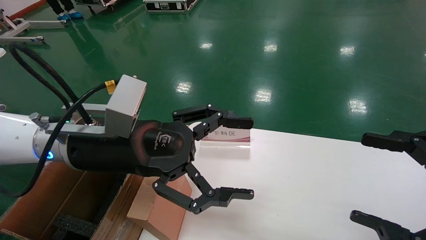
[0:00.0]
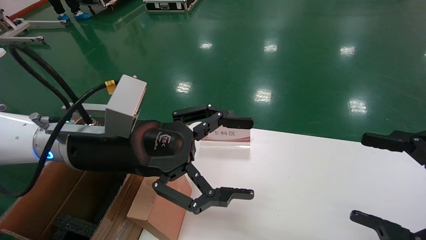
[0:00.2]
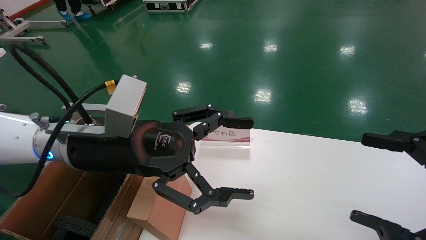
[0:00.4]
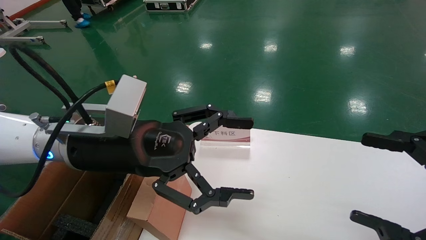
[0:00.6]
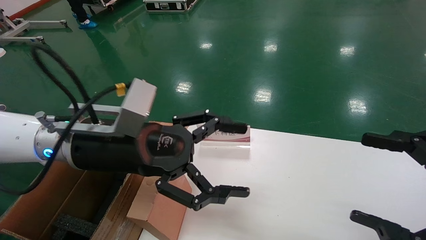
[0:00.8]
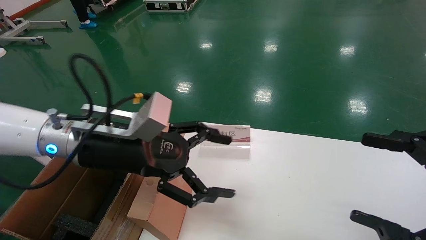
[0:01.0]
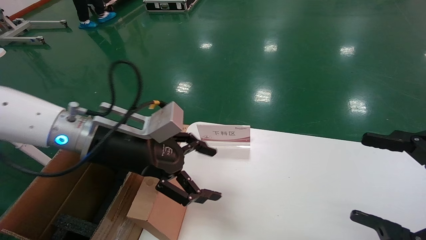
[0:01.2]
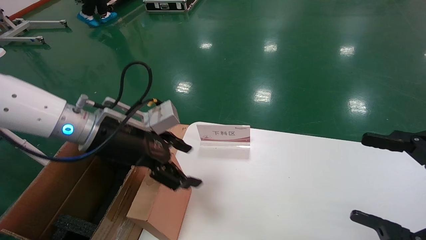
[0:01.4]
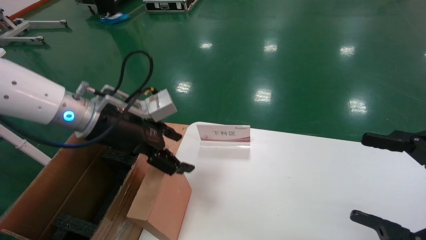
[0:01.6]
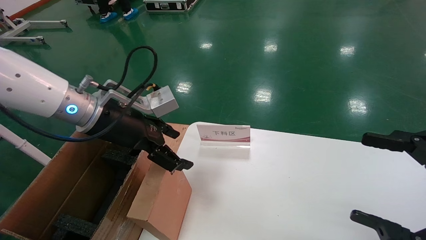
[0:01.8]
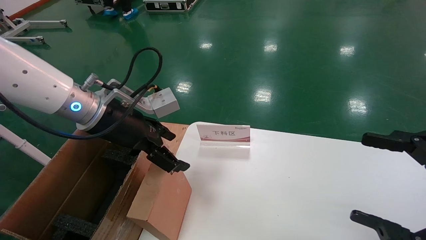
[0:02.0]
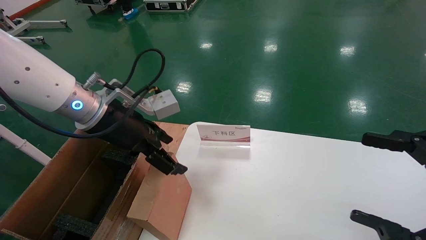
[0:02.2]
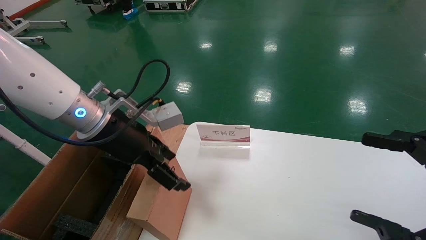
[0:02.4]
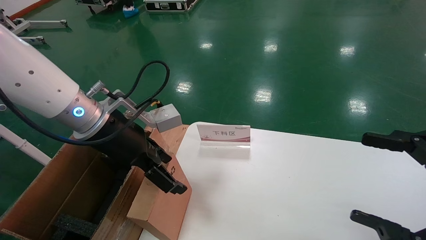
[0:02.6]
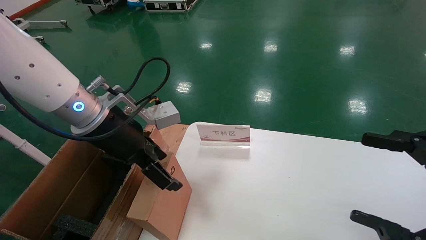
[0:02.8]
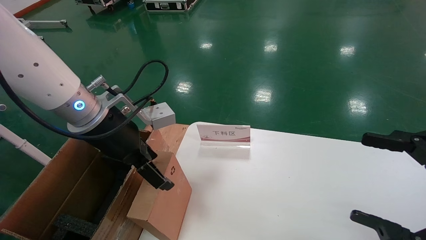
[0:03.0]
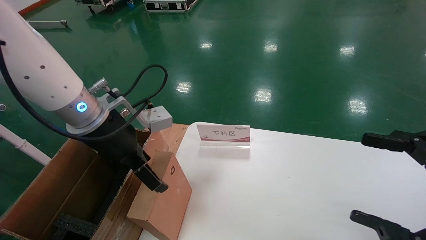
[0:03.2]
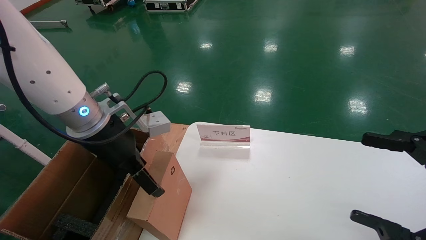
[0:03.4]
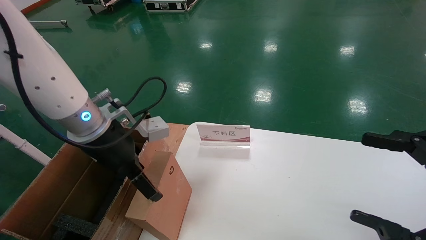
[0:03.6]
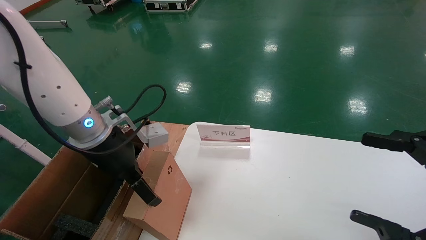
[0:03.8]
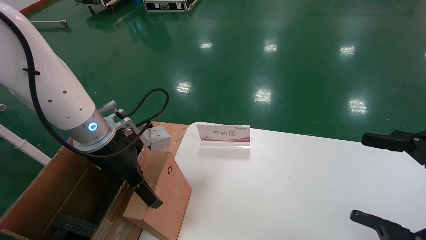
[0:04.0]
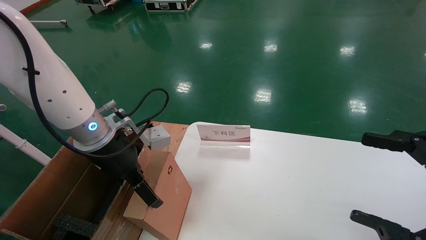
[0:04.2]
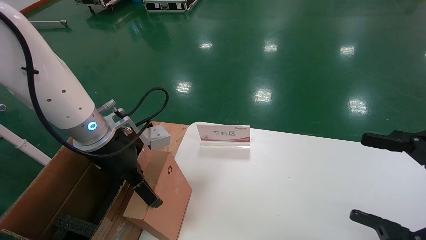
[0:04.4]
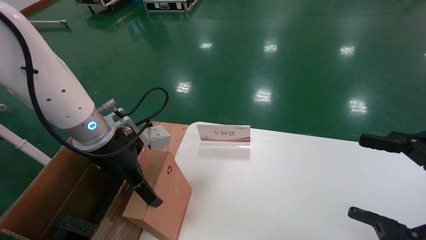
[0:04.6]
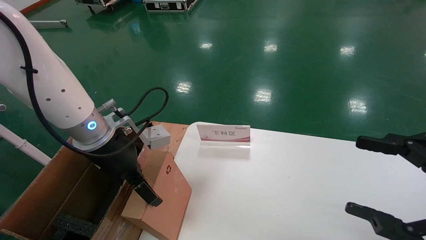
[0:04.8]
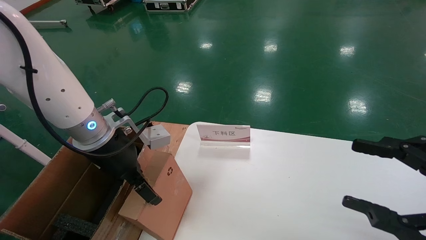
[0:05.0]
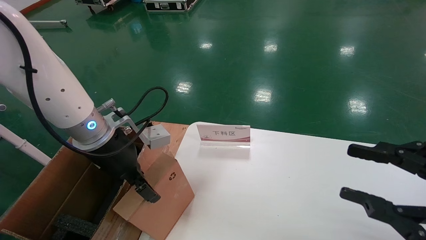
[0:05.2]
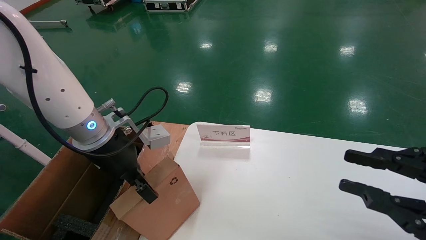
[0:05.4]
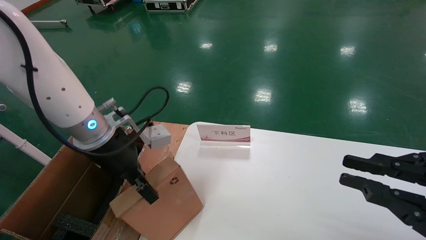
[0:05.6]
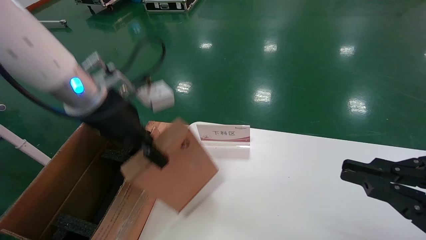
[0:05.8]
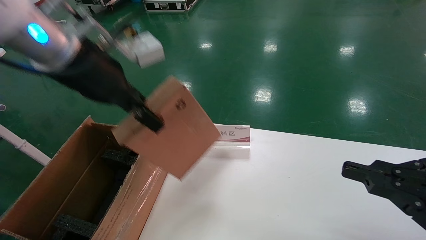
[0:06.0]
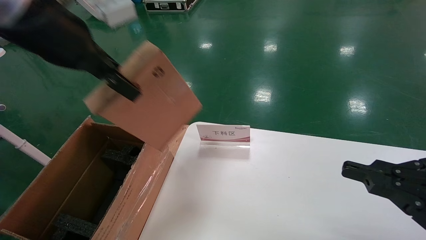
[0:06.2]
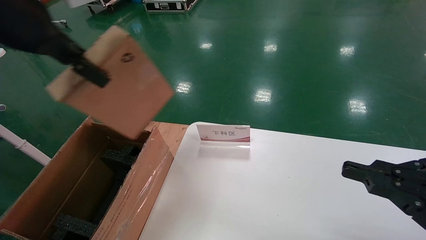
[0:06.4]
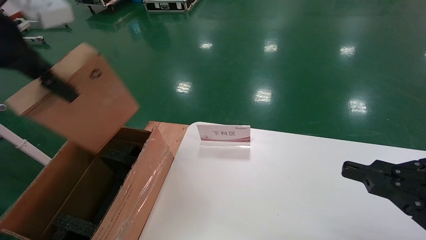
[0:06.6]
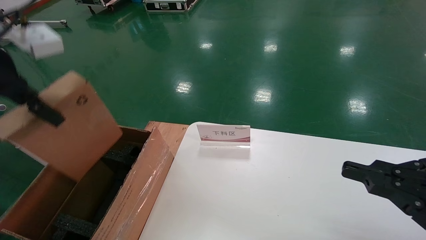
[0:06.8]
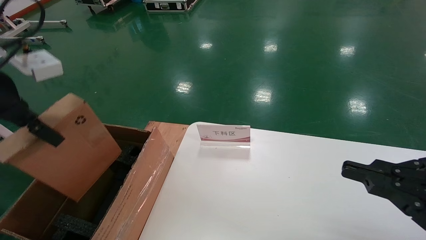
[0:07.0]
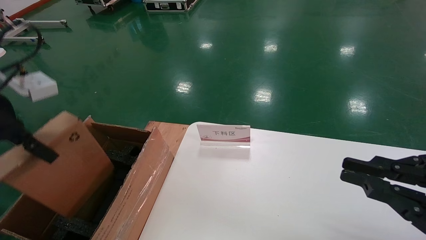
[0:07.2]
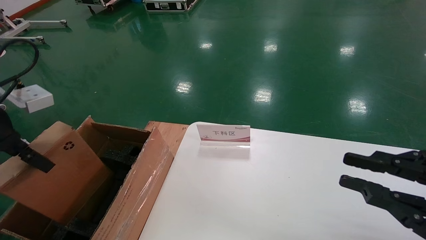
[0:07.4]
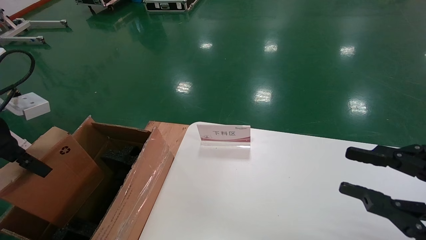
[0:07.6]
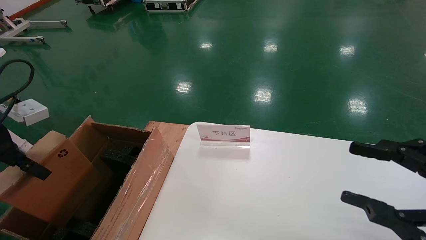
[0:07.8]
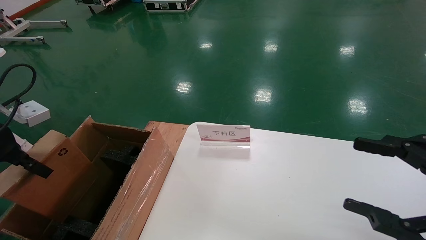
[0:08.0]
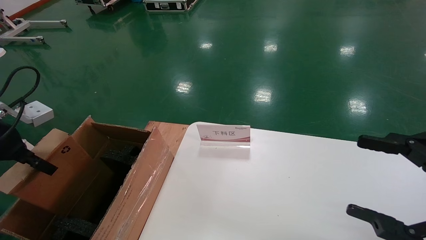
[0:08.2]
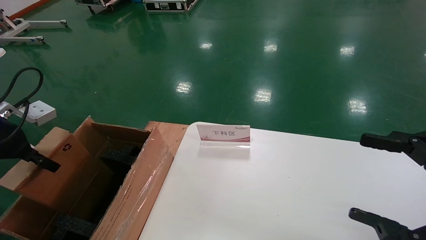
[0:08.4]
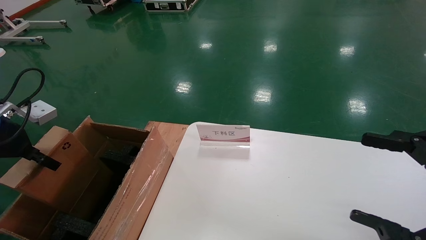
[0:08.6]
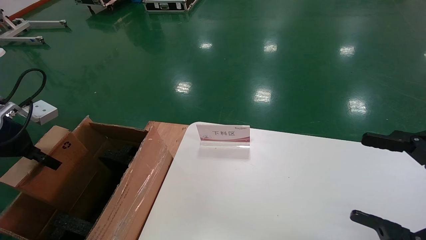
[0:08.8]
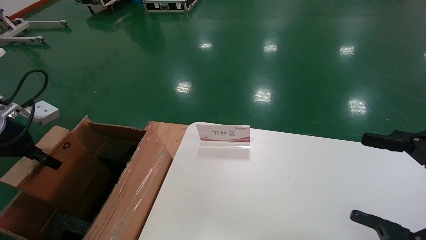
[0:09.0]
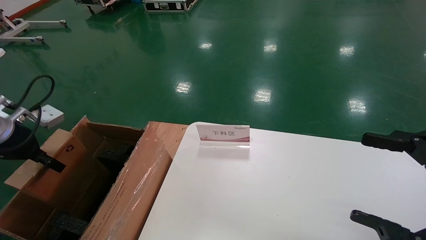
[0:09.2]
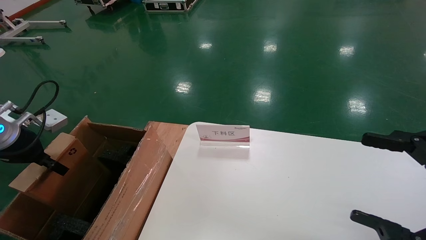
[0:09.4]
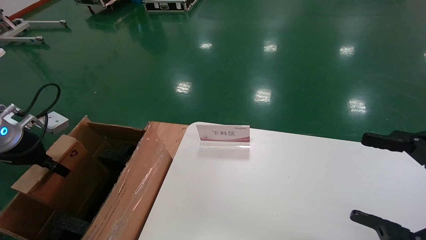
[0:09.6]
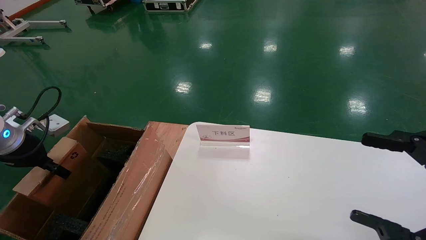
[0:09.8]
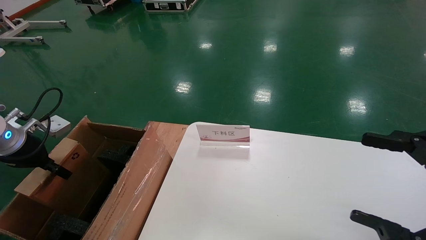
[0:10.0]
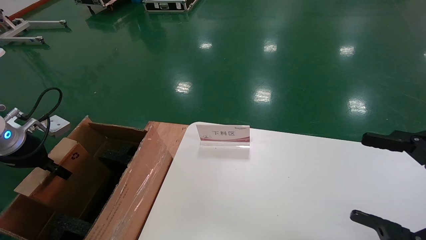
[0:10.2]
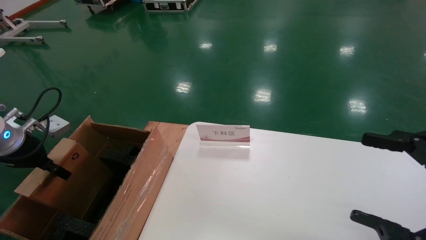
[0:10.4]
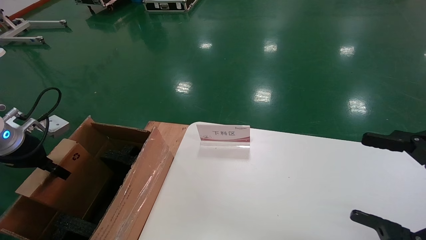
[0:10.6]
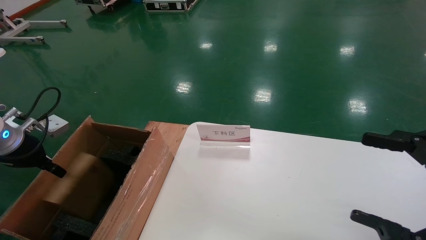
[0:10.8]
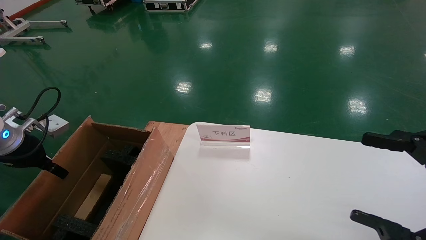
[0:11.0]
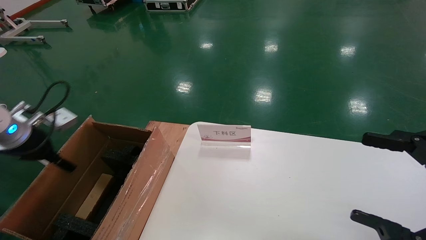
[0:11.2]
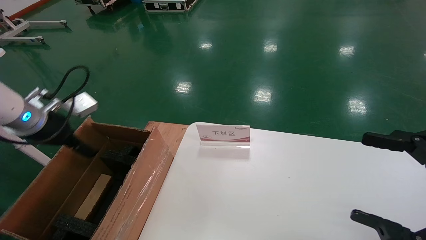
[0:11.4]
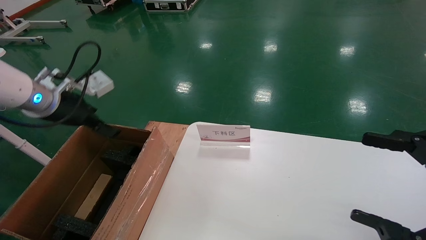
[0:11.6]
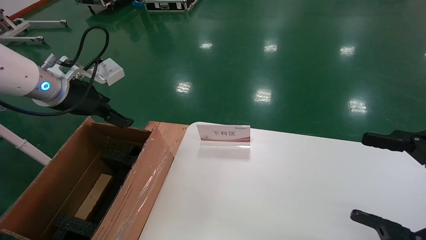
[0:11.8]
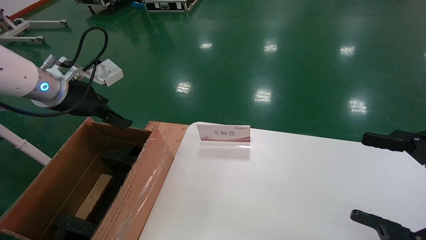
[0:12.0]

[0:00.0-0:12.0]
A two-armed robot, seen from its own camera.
Task of the whole recording: pick up the small cardboard box and load it into the large cardboard box.
Step, 0:01.0 to 0:05.2: Pick up the mouse and power cord box.
Step, 0:05.4 to 0:11.0: Place the mouse and power cord box into the case.
0:00.0 to 0:01.6: The left gripper heads forward, covering roughly 5 cm.
0:03.0 to 0:04.4: The grippers stay close to where they were, moving slightly.
0:04.4 to 0:06.0: The right gripper closes, while the left gripper heads upward, covering roughly 15 cm, and closes up.
0:06.0 to 0:07.6: The left gripper goes roughly 20 cm to the left and downward.
0:07.6 to 0:09.0: The left gripper is displaced downward and forward by about 10 cm, while the right gripper opens its fingers.
0:09.0 to 0:10.4: There are only small adjustments of the grippers.
0:10.4 to 0:12.0: The left gripper heads to the right and upward, covering some 15 cm, and opens its fingers.

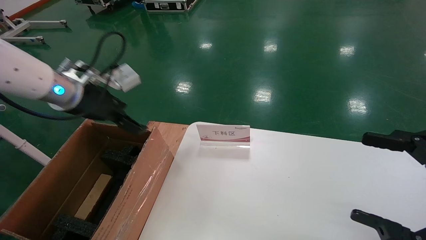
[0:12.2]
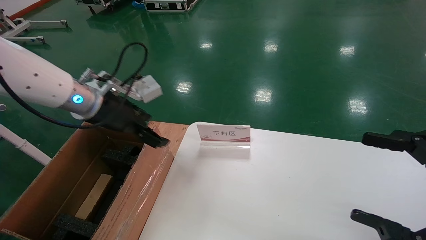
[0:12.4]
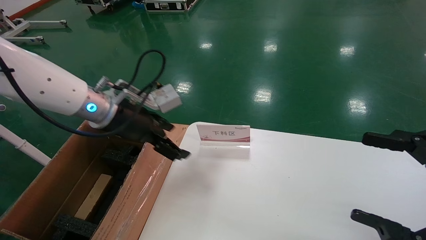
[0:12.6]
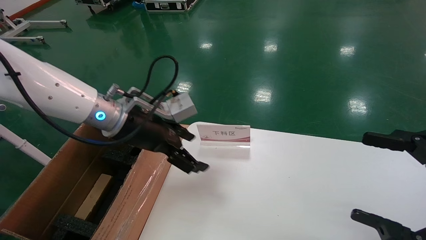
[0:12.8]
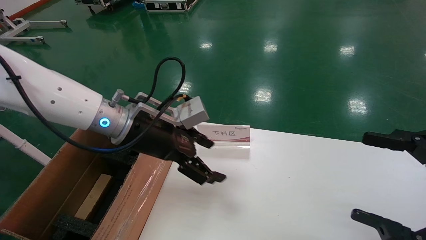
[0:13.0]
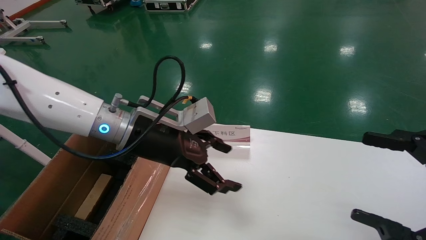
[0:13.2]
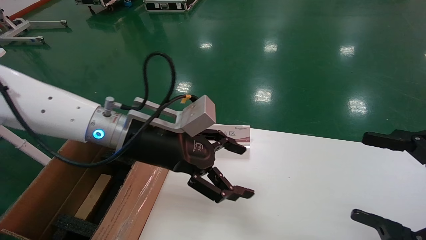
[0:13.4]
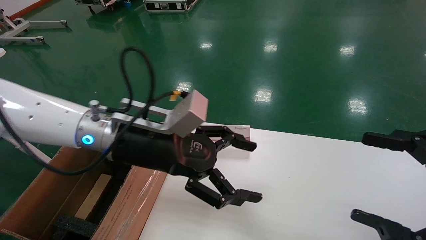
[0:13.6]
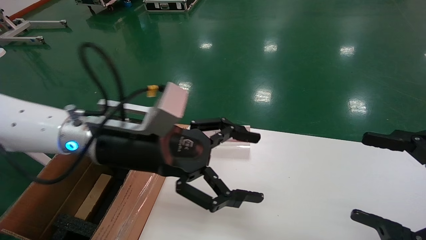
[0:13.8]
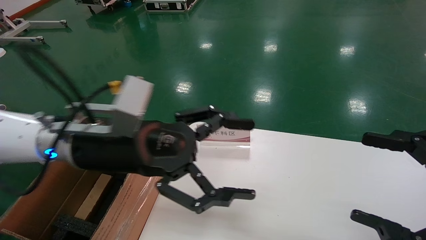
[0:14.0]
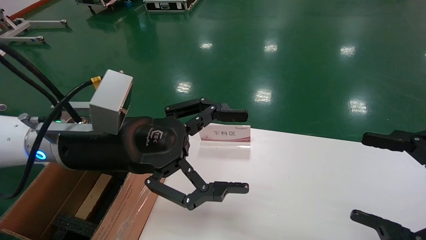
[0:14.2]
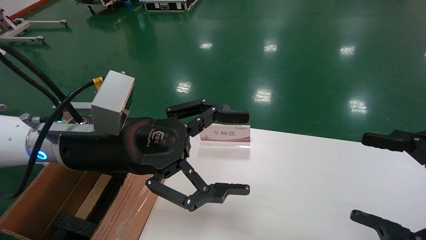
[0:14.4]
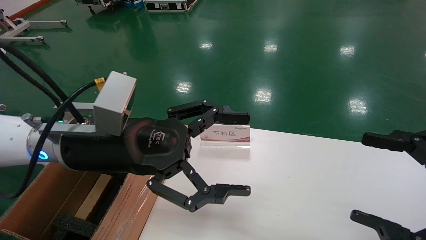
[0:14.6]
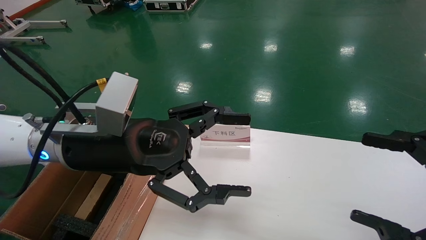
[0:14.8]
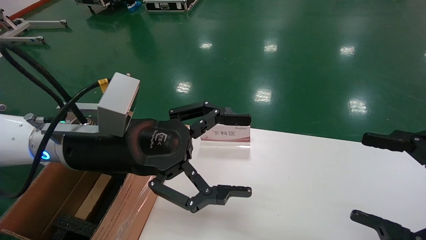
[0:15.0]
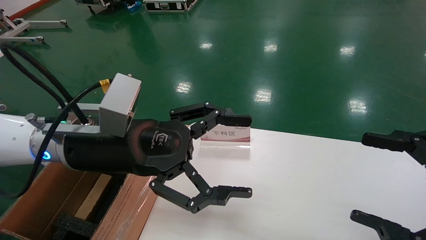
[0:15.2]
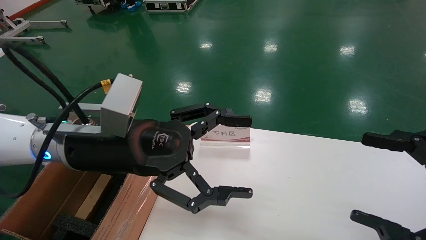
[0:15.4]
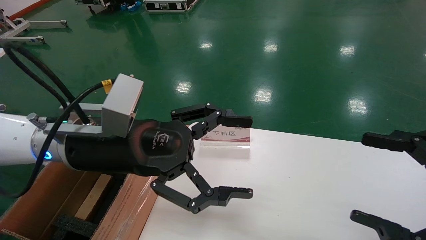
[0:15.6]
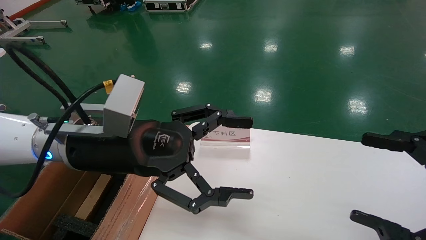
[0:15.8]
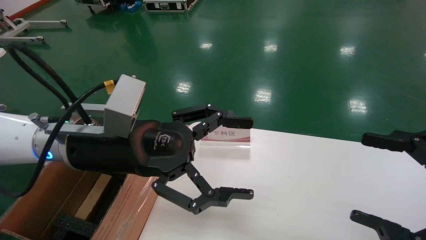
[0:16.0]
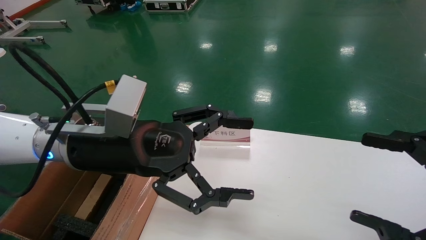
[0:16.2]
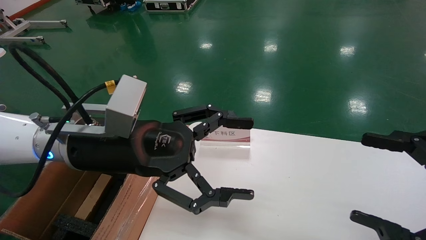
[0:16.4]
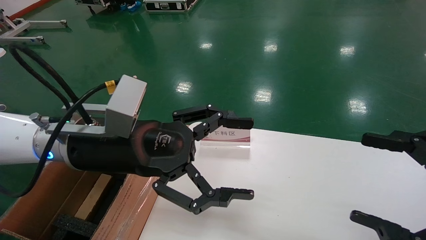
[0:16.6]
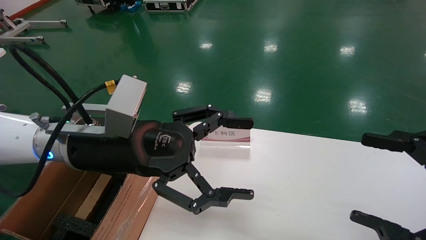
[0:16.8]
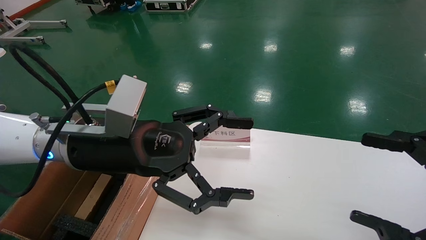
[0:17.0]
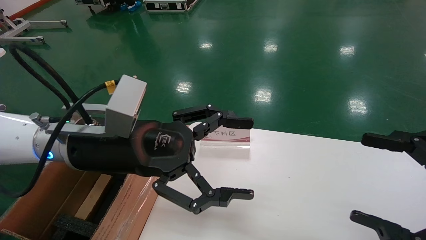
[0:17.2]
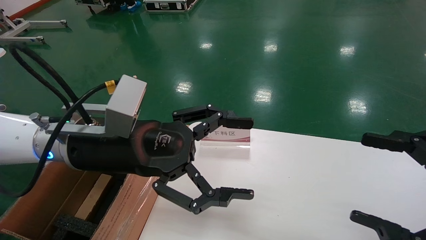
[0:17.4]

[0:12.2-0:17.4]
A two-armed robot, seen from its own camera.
Task of the whole recording: pick up the small cardboard box and load it into the large cardboard box.
0:12.2 to 0:14.0: The left gripper travels to the right and backward by about 15 cm.
0:14.0 to 0:17.4: Both grippers stay put.
